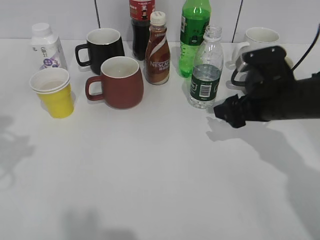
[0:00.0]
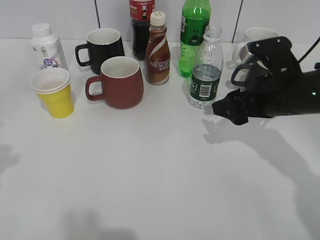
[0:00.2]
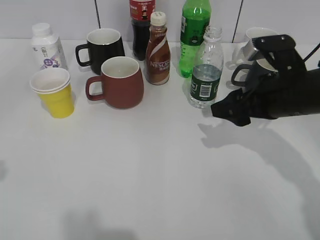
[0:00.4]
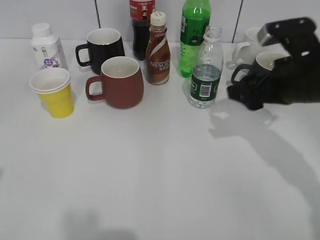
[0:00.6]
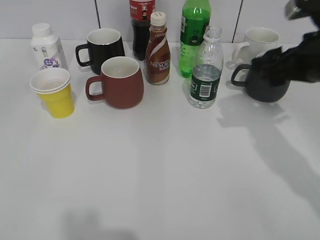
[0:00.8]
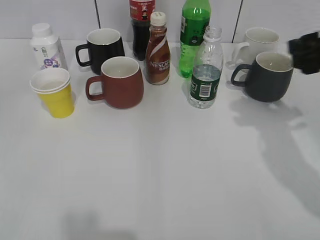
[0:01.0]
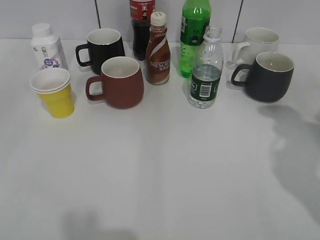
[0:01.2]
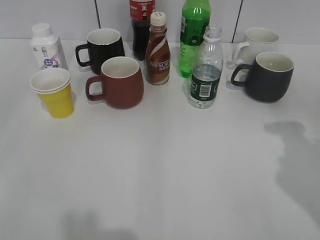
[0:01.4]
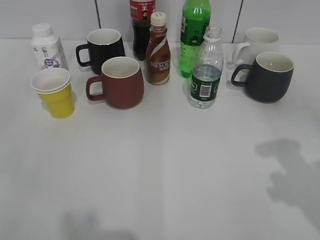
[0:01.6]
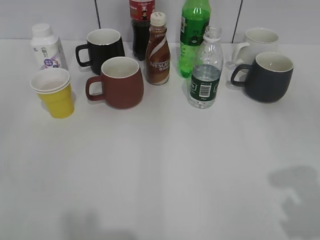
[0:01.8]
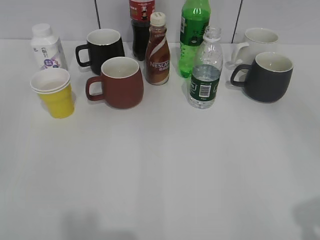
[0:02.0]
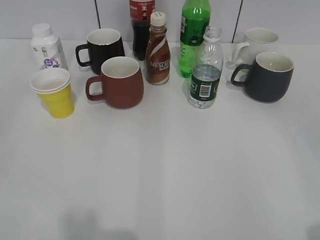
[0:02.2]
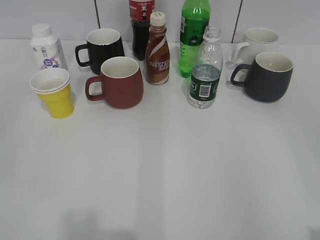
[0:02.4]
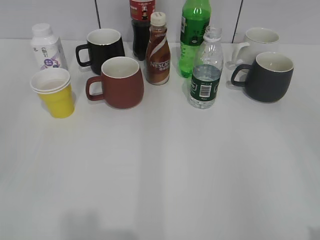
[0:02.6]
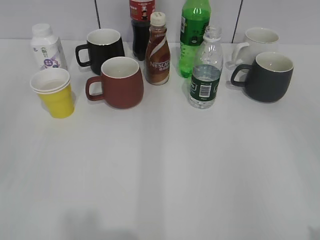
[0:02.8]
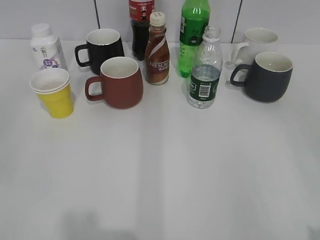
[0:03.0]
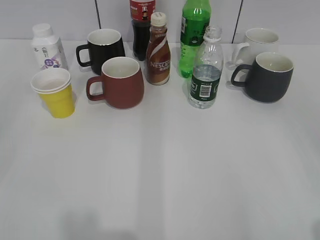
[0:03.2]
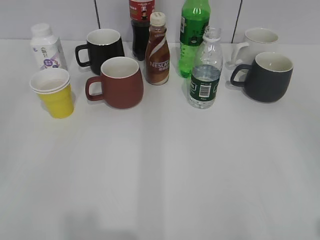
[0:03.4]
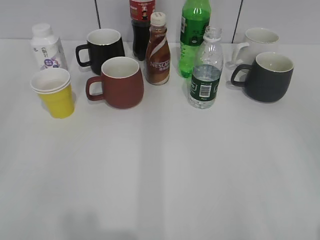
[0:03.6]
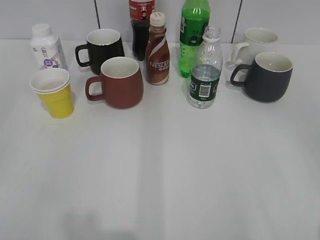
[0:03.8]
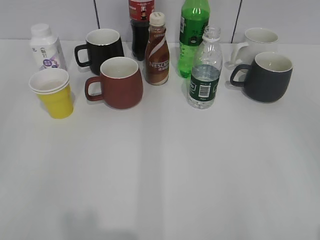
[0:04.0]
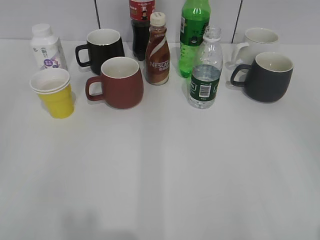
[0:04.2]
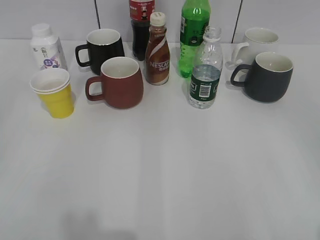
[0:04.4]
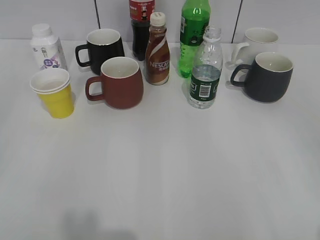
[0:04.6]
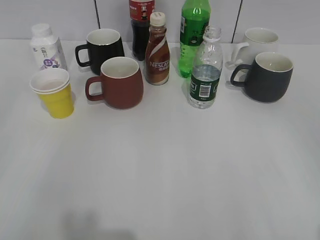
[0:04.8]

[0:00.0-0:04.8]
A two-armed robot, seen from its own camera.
0:00.0 to 0:01.6: The left gripper is displaced backward by about 15 cm. The right gripper heads backward, upward and to the right, covering approximately 20 cm.
0:01.6 to 0:03.2: The right gripper goes approximately 15 cm backward.
